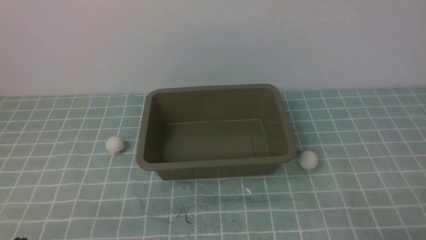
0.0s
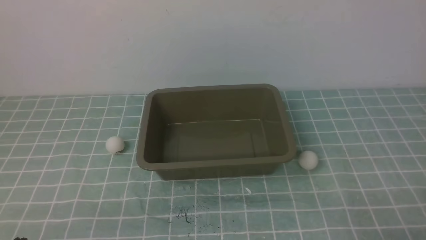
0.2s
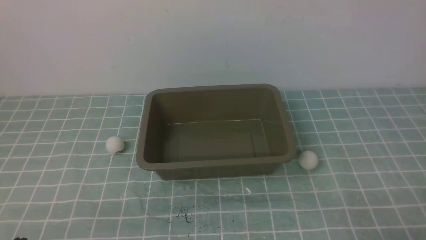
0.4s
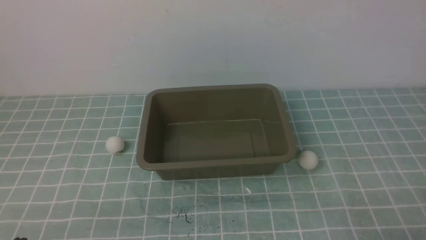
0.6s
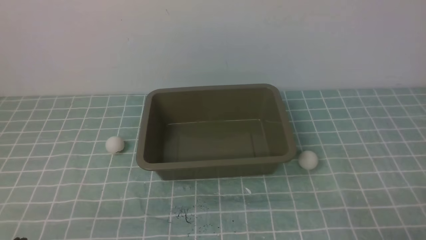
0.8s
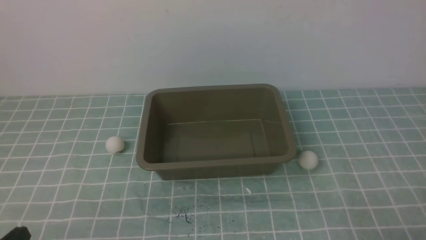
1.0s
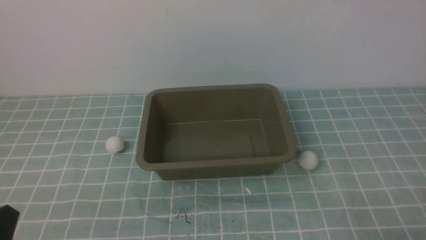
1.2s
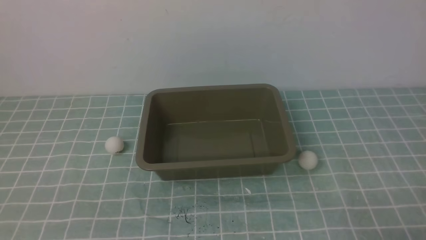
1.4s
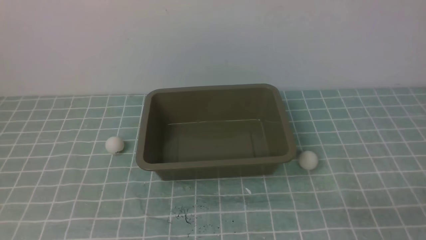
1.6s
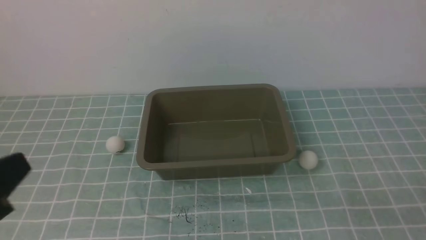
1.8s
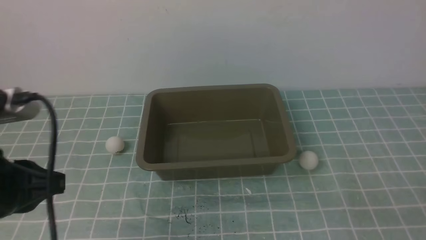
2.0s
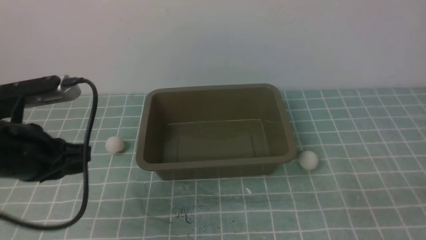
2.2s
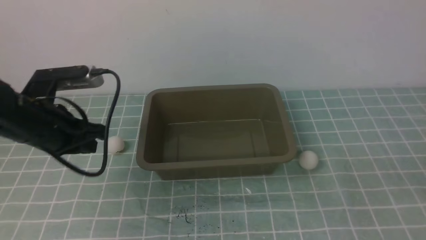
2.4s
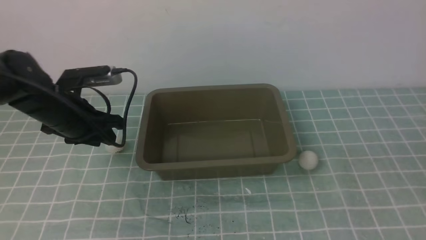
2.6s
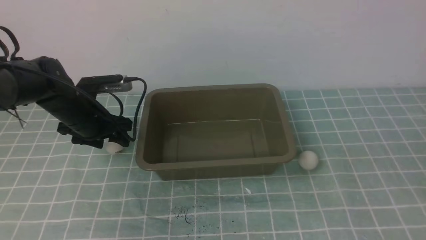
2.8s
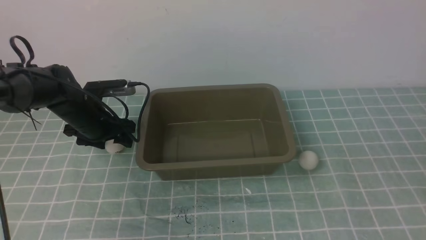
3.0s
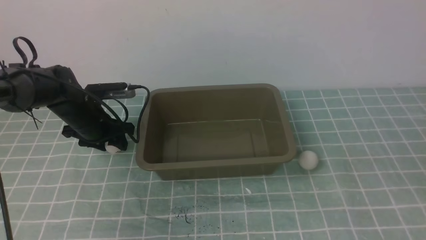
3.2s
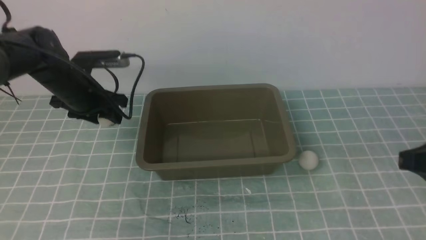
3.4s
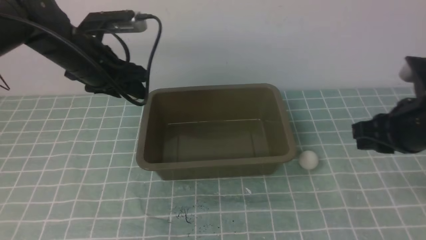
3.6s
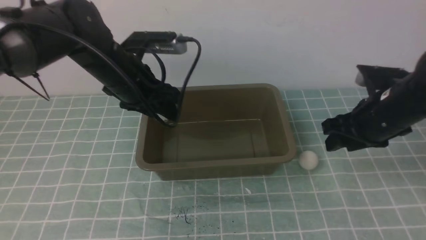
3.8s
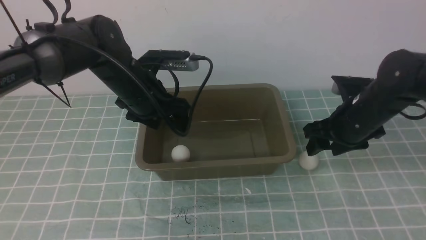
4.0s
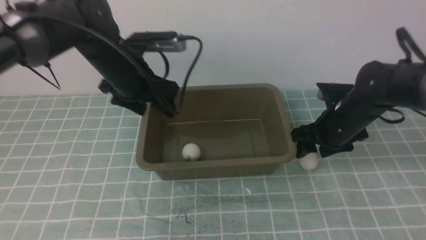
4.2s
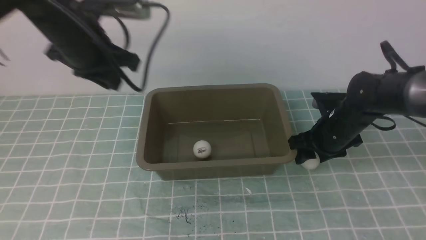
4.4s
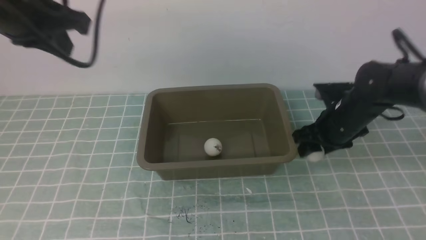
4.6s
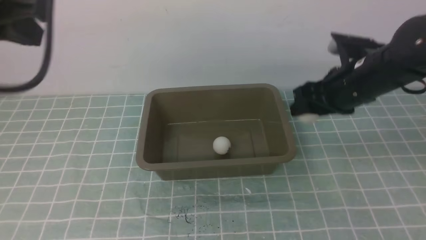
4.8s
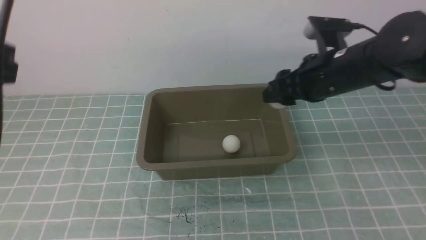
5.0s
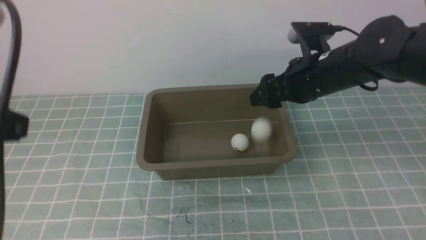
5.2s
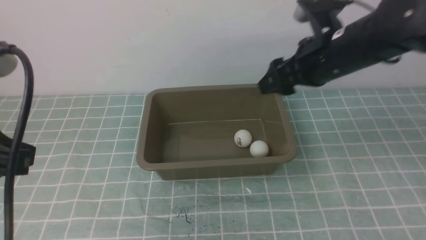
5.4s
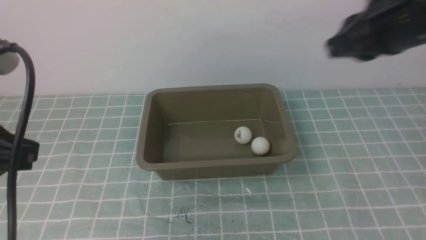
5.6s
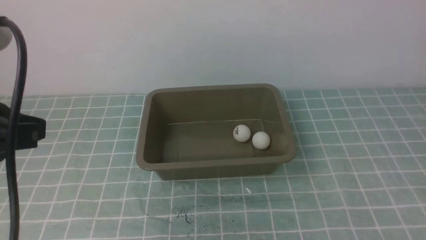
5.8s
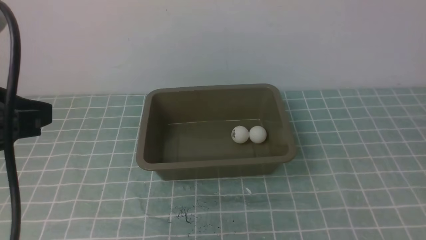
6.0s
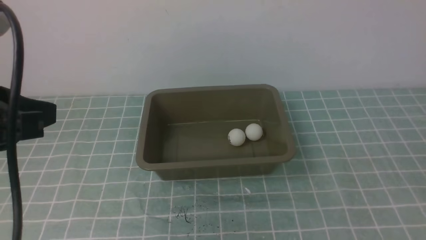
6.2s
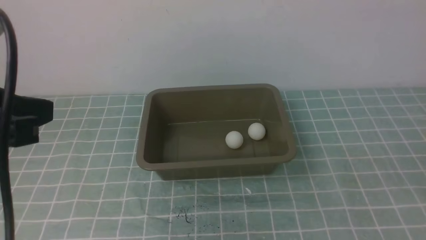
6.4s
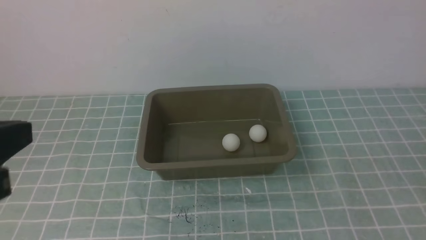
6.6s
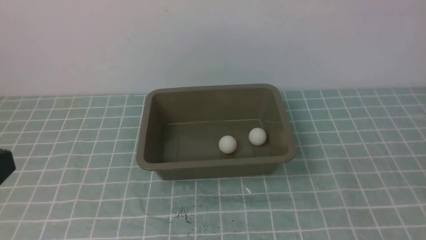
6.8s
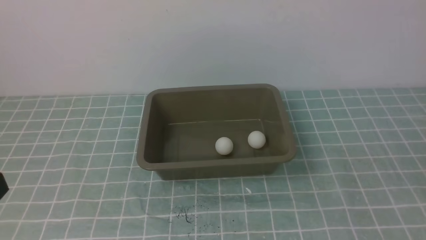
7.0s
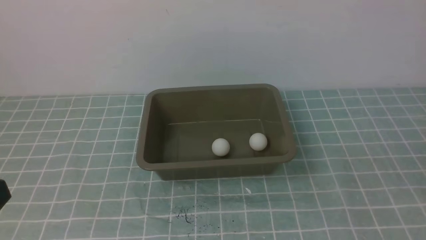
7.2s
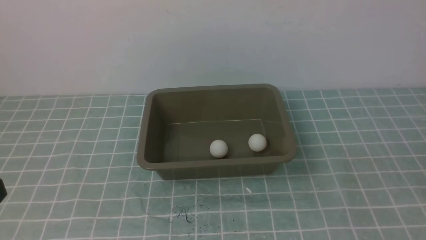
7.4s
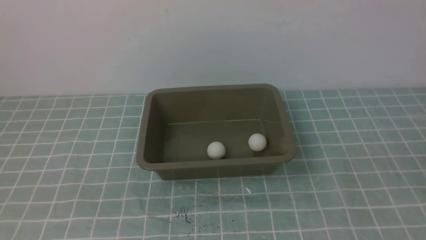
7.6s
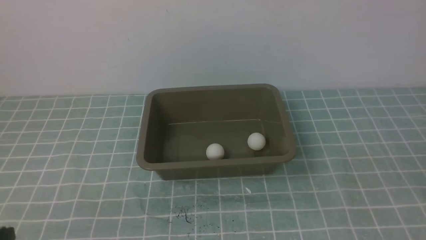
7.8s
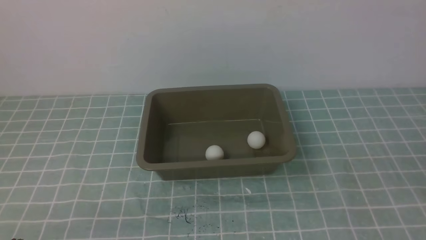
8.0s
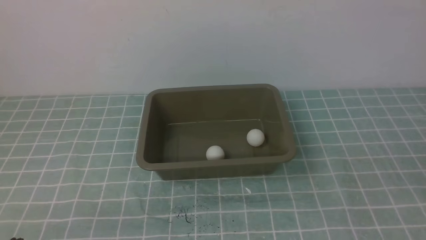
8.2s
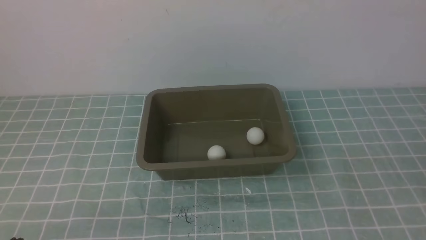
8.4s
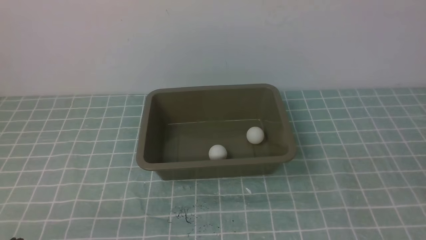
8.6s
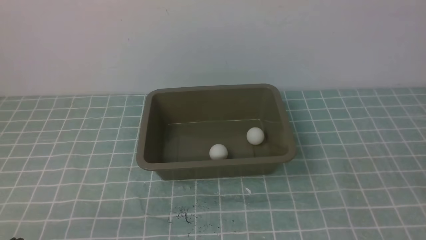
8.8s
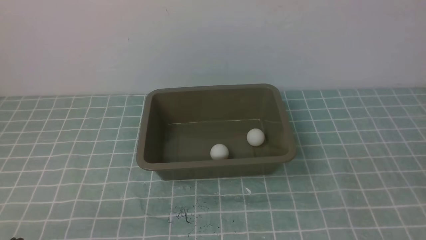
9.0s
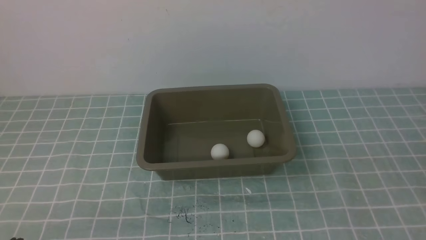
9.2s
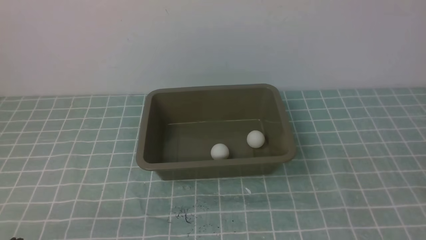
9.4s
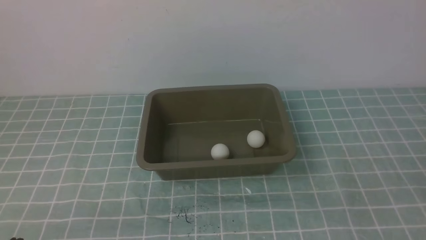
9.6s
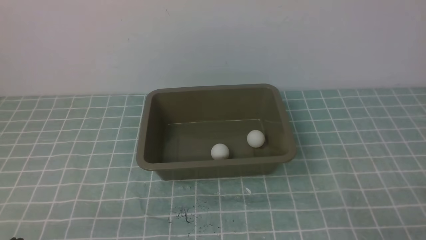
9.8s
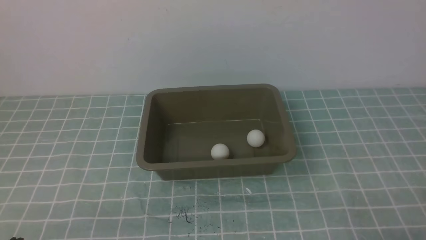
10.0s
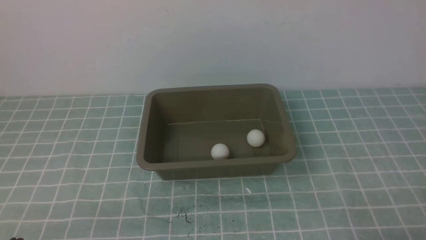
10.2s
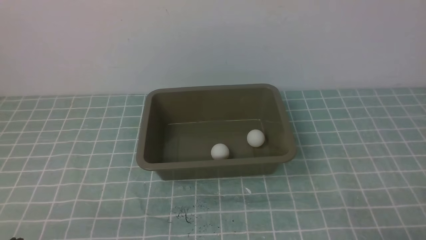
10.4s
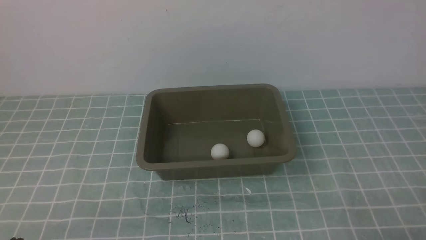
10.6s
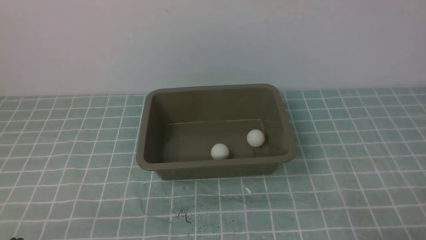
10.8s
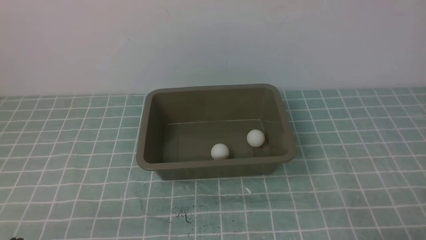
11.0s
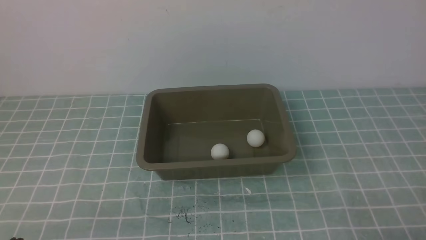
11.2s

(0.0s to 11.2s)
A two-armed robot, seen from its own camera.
Step, 0.0s - 3.2s: use the left arm to clamp the table tennis ball closest to it.
Step, 3.6s - 4.0s: use the left arm to put the table tennis ball into the box.
Step, 4.2s - 4.6s: use the right arm to clamp the table tennis ball closest to it.
Step, 4.8s - 5.2s: use the right arm to put the table tennis ball into the box.
1.6s - 3.2s: The right gripper travels upward and forward by approximately 15 cm; the left gripper heads forward, covering some 35 cm, and opens.
3.2s - 4.8s: The left gripper heads upward and backward, covering some 35 cm, and closes its fingers. Meanwhile the right gripper travels forward and to the left by some 25 cm, and opens up.
4.8s - 6.4s: The left gripper is displaced backward and downward by approximately 10 cm, while the right gripper moves backward and to the right, some 35 cm, and closes its fingers.
6.4s - 8.0s: The left gripper heads downward, covering about 20 cm.

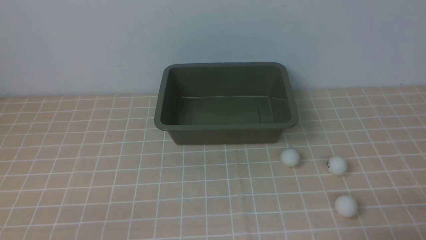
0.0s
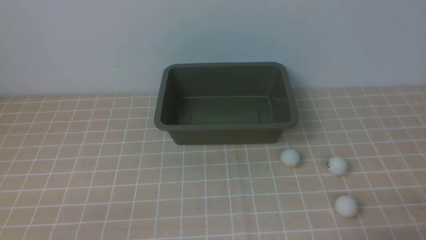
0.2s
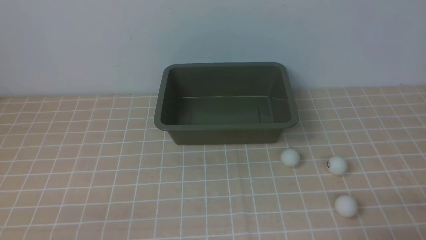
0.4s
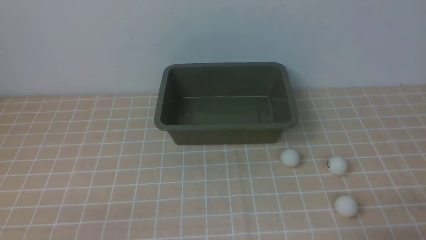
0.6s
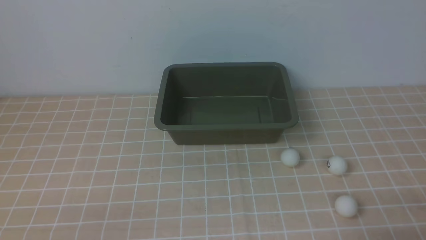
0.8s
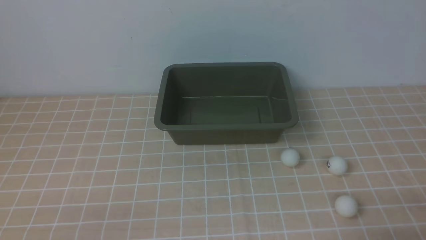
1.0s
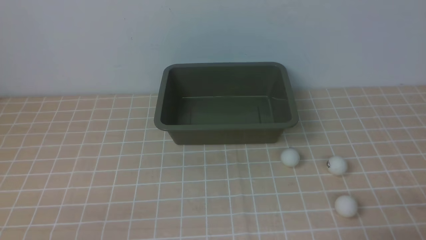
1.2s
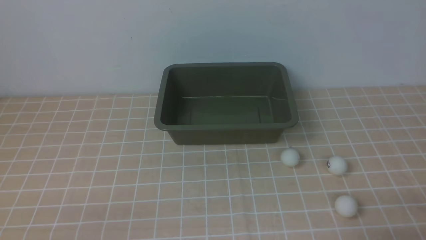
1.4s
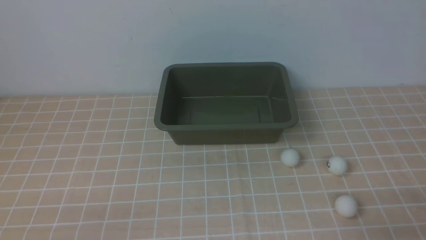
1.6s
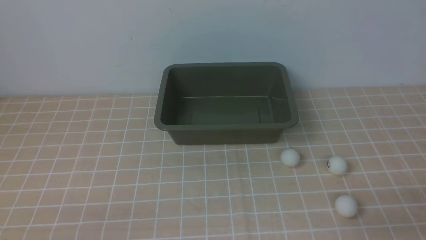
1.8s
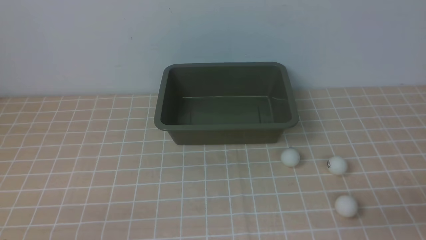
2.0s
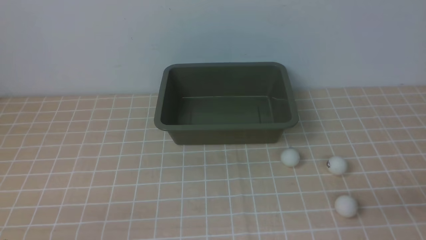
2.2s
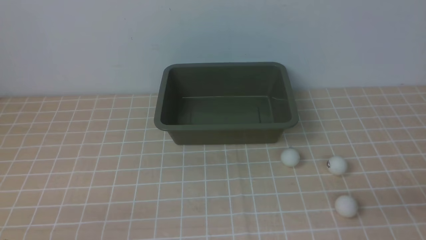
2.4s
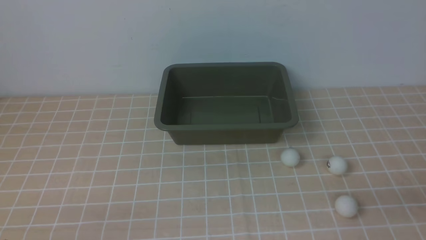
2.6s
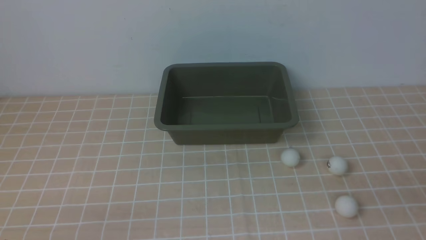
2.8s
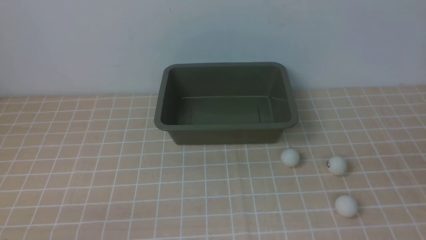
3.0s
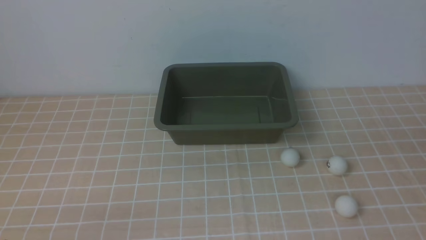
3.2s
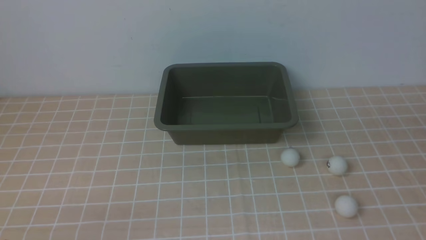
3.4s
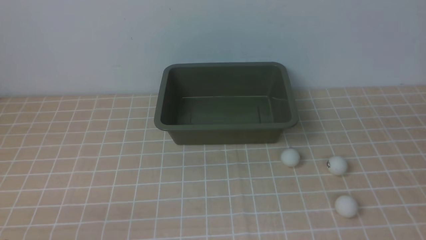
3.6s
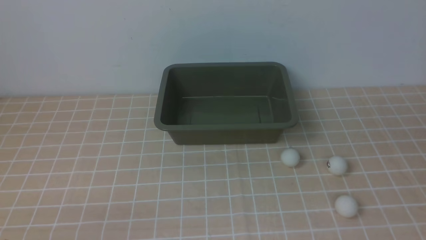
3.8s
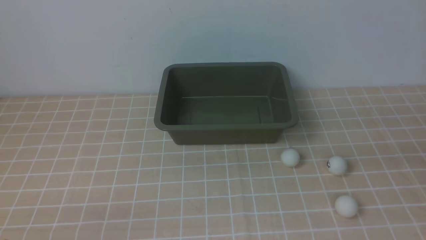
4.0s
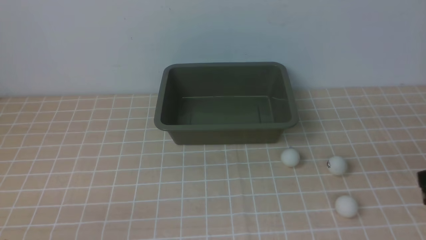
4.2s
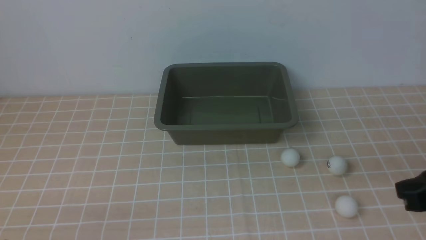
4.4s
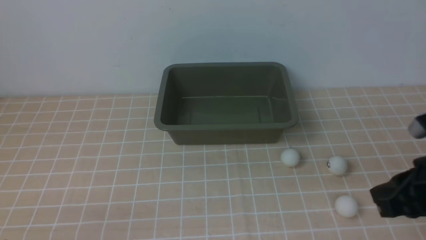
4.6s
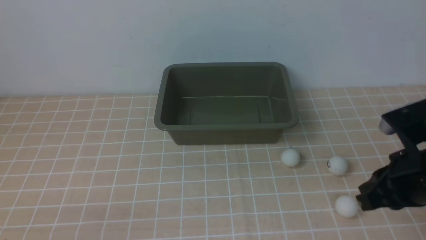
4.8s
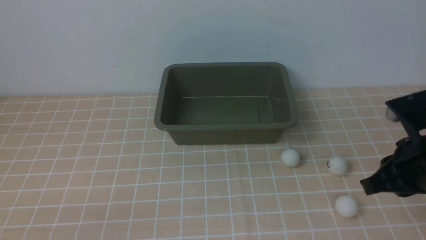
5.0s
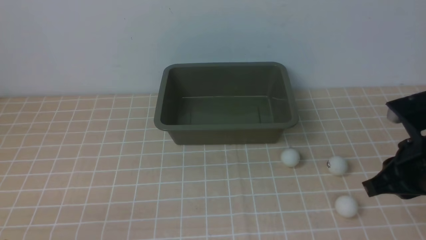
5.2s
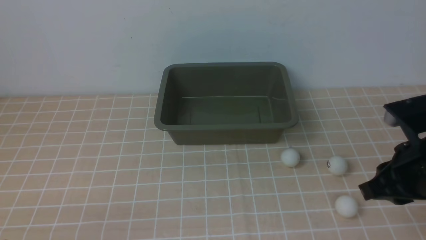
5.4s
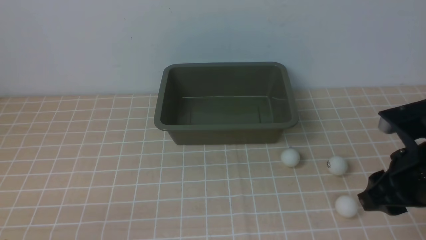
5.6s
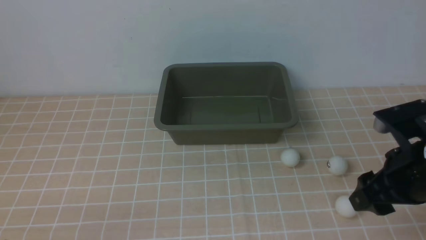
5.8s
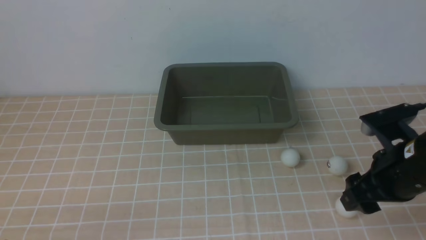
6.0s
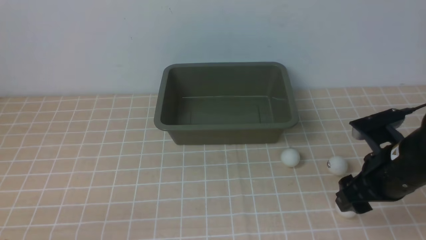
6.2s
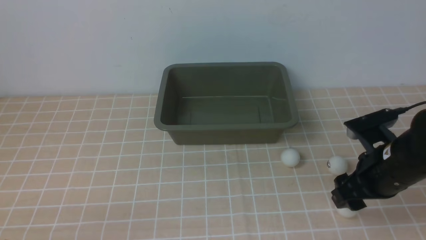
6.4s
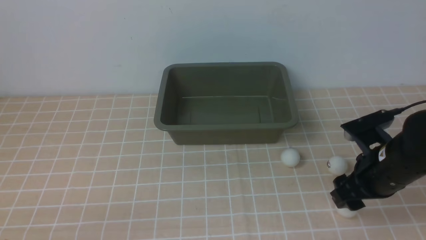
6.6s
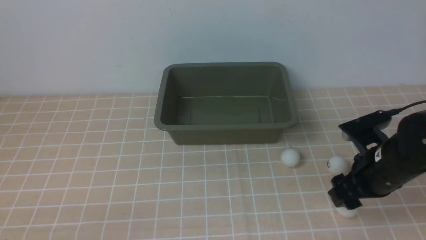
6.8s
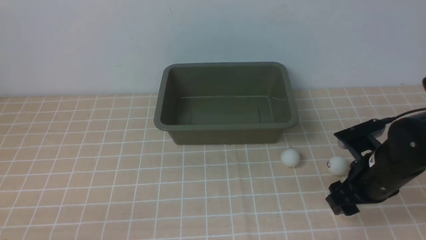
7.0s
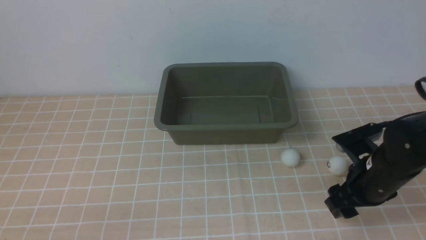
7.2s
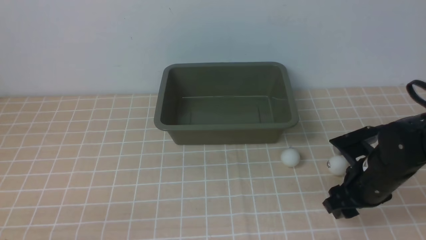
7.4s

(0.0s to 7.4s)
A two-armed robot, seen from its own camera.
0.0s - 1.4s: The two grippers keep their place.
3.0s - 4.4s: The right gripper goes about 10 cm forward.
4.4s - 6.0s: The right gripper travels forward by some 5 cm, and opens.
6.0s - 7.4s: The right gripper heads downward, covering about 5 cm.
